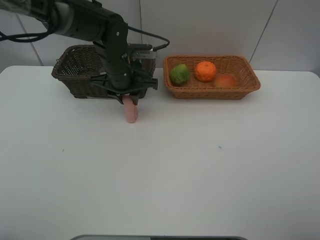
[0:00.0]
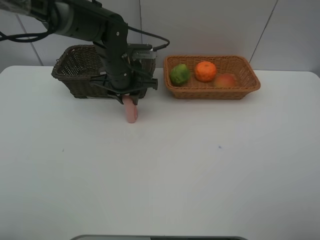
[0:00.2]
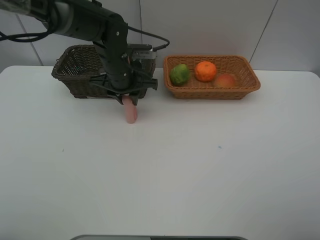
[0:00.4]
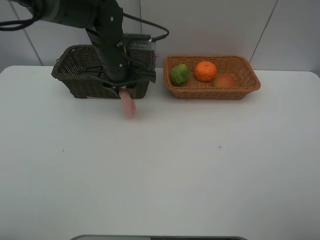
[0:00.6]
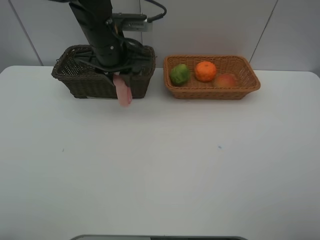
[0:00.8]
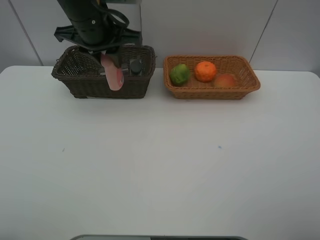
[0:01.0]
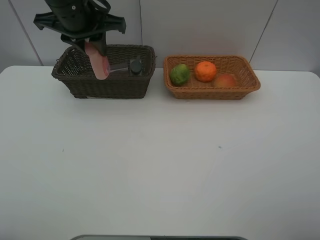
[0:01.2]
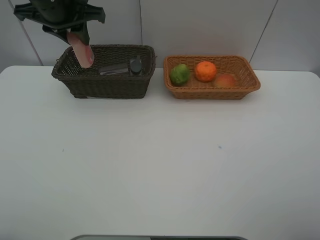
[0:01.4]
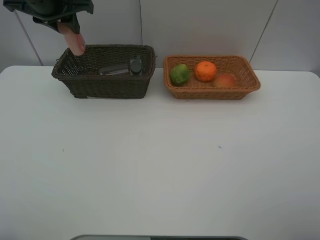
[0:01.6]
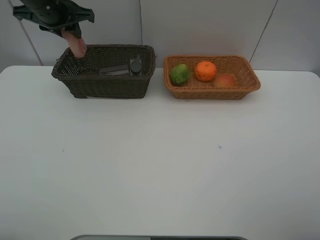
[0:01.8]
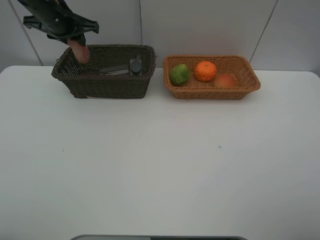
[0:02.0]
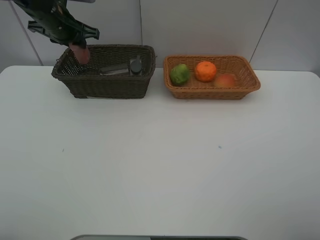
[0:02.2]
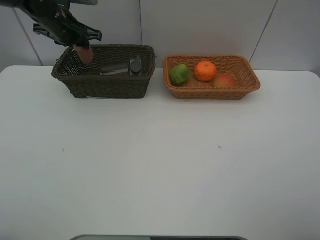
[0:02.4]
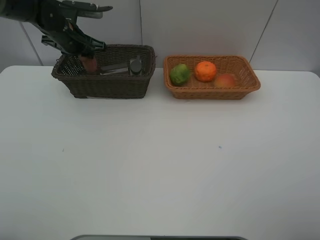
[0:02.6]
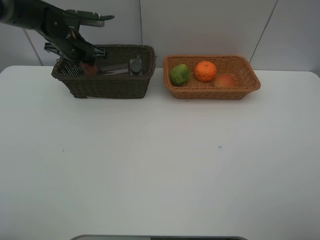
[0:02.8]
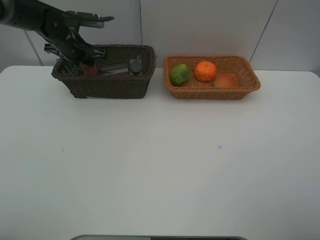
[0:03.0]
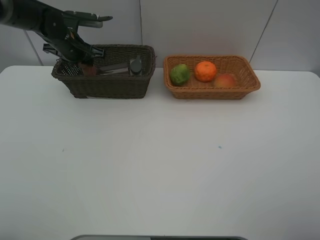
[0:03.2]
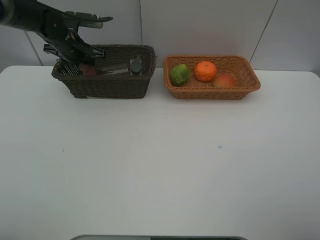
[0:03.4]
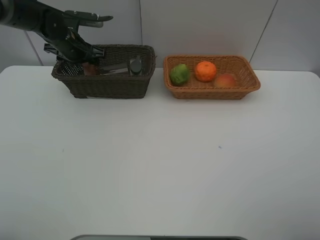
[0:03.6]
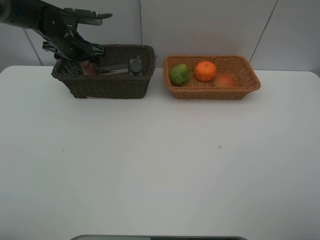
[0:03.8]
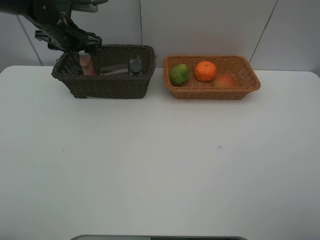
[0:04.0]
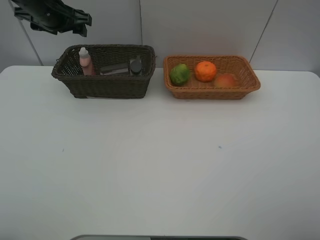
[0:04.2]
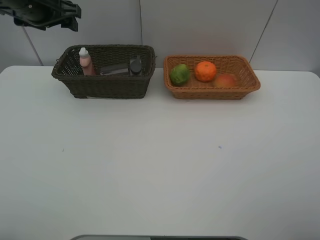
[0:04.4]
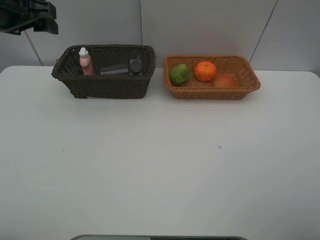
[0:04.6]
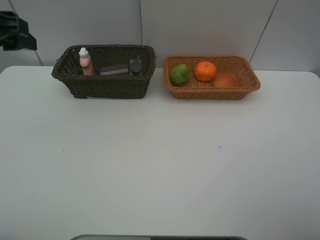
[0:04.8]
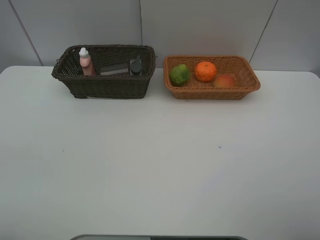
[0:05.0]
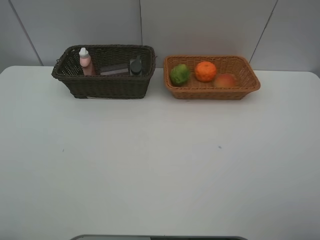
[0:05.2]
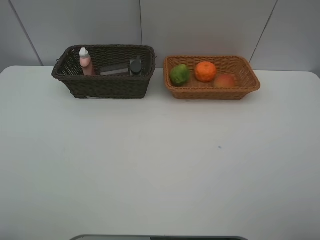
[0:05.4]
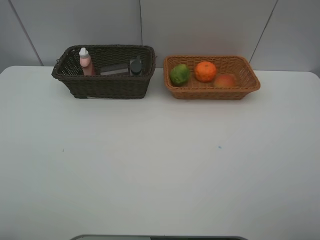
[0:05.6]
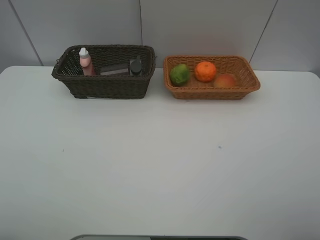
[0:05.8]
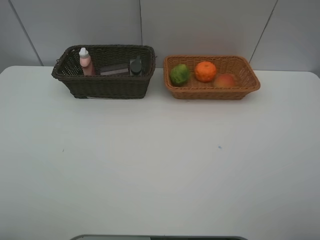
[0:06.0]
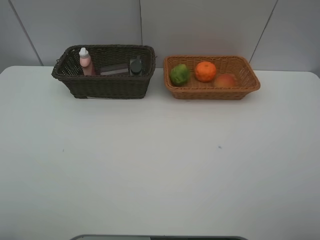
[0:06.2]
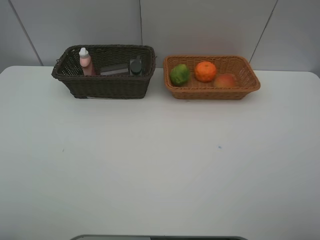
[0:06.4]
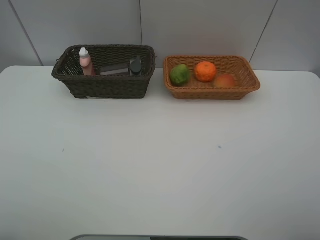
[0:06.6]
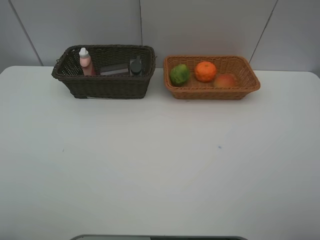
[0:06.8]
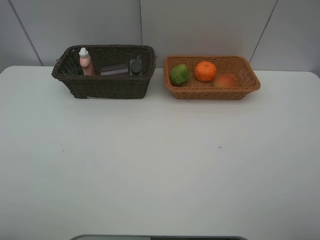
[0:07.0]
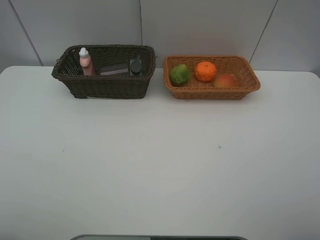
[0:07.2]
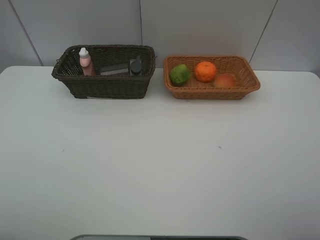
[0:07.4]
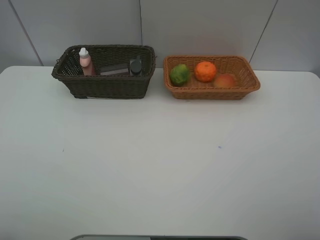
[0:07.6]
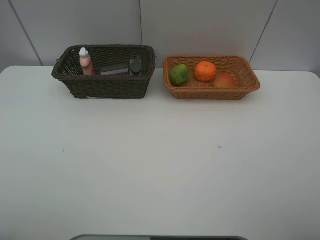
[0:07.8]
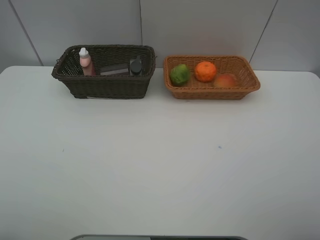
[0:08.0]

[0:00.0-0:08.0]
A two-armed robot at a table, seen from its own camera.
Task of the whole recording: place multiple objects separately in different baskets.
0:00.0 to 0:01.6: The left gripper shifts approximately 20 cm upward and to the left.
0:01.6 to 0:03.2: The left gripper shifts roughly 15 cm downward and forward.
0:03.2 to 0:04.8: The left gripper heads backward and upward, covering approximately 30 cm, and opens up.
0:04.8 to 0:06.4: The left gripper shifts about 25 cm backward.
